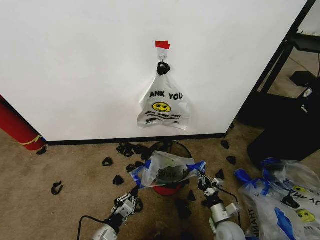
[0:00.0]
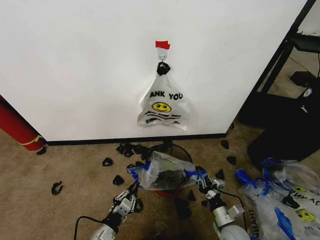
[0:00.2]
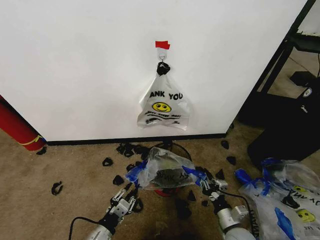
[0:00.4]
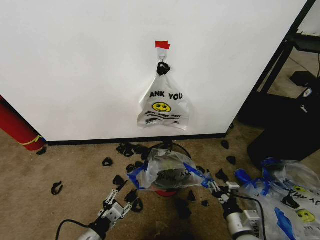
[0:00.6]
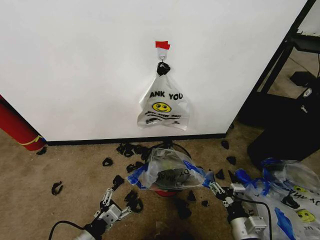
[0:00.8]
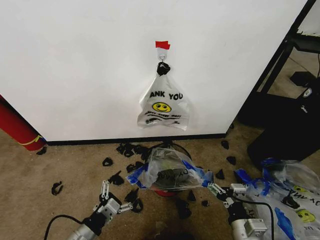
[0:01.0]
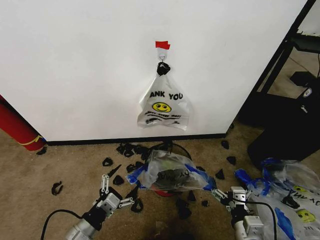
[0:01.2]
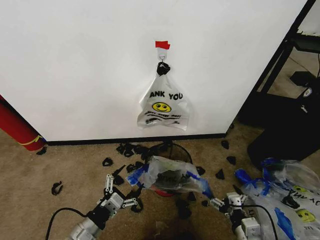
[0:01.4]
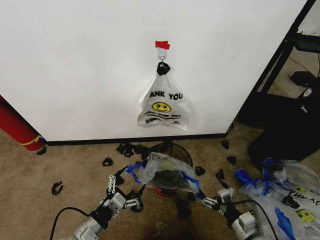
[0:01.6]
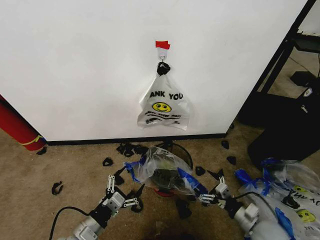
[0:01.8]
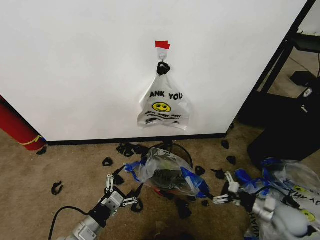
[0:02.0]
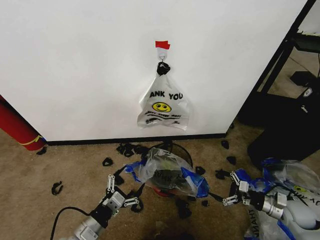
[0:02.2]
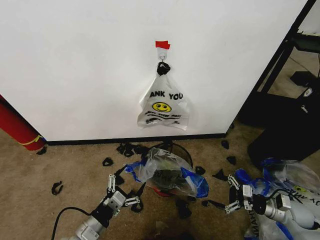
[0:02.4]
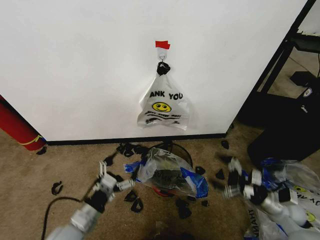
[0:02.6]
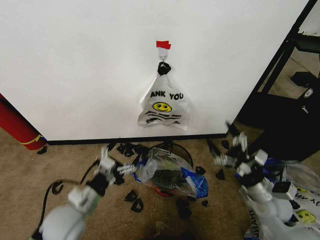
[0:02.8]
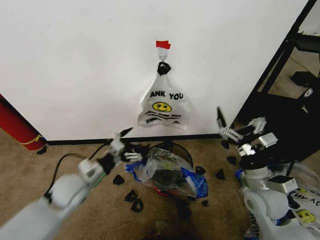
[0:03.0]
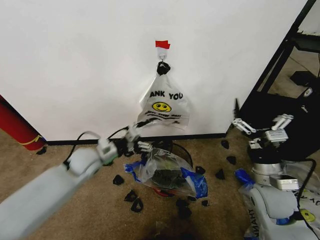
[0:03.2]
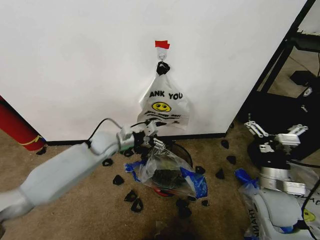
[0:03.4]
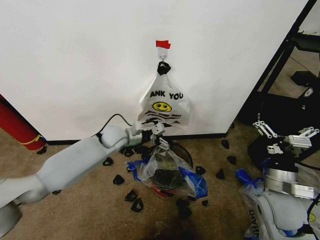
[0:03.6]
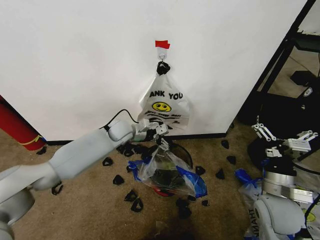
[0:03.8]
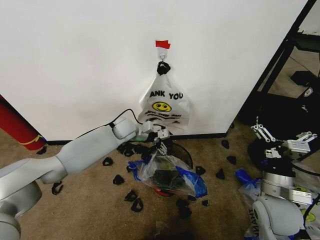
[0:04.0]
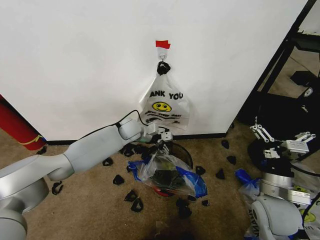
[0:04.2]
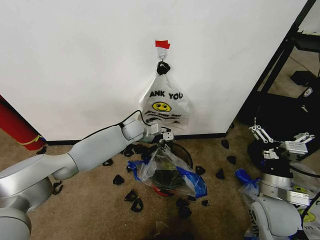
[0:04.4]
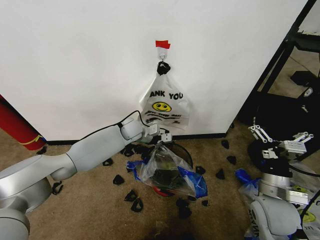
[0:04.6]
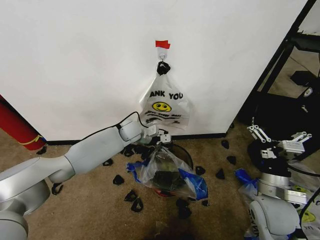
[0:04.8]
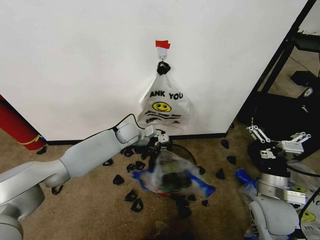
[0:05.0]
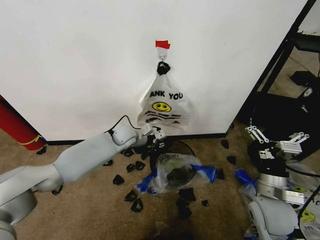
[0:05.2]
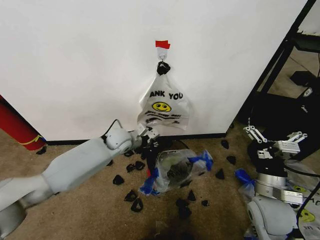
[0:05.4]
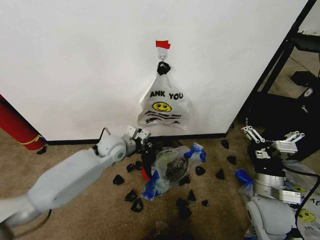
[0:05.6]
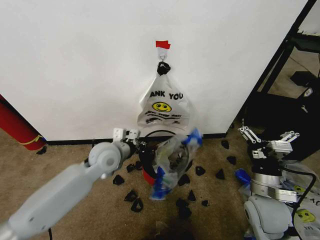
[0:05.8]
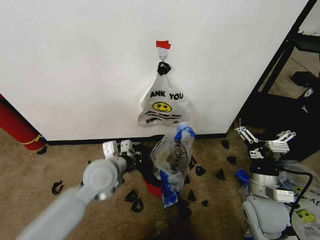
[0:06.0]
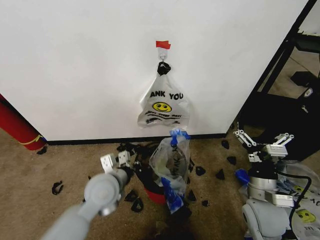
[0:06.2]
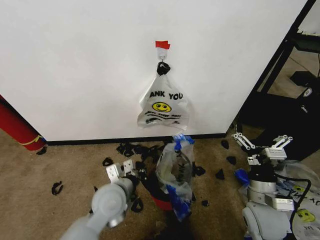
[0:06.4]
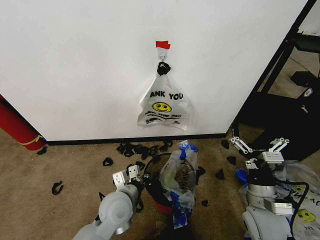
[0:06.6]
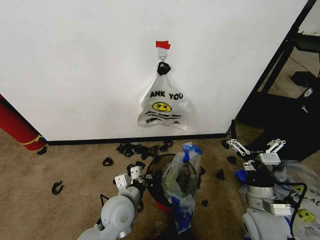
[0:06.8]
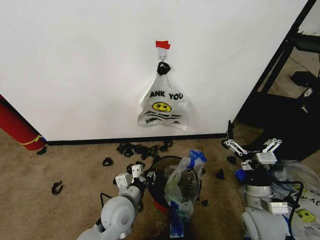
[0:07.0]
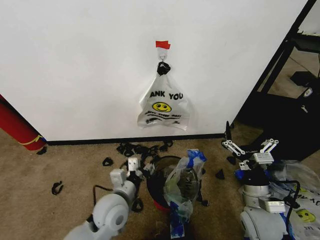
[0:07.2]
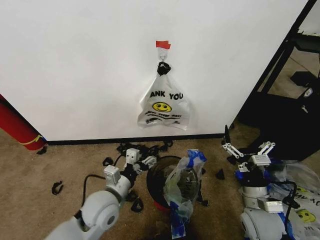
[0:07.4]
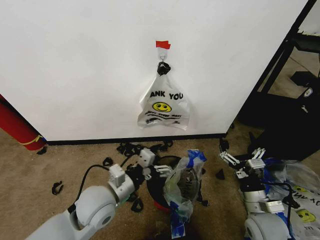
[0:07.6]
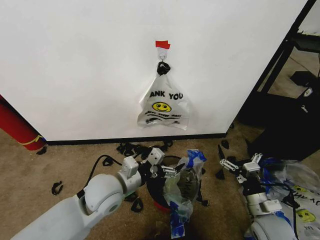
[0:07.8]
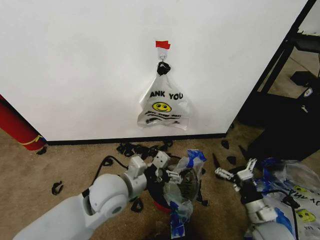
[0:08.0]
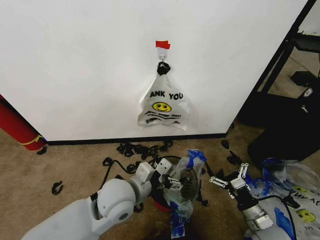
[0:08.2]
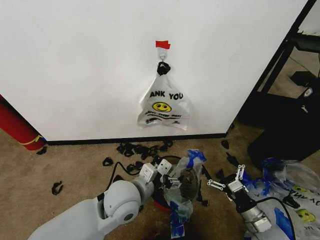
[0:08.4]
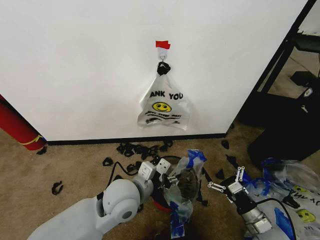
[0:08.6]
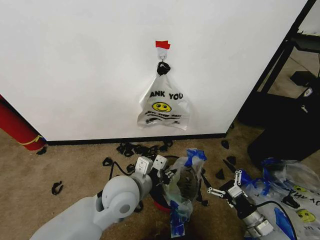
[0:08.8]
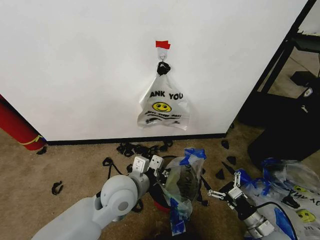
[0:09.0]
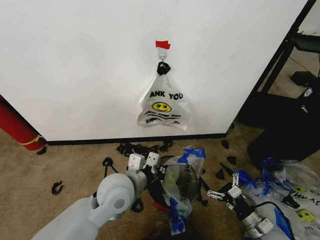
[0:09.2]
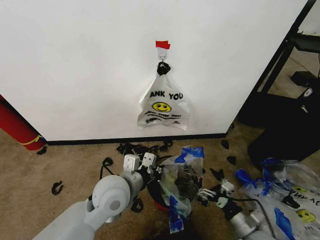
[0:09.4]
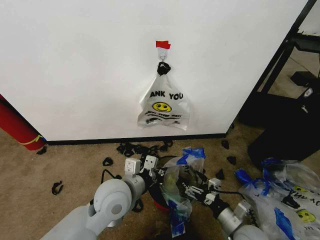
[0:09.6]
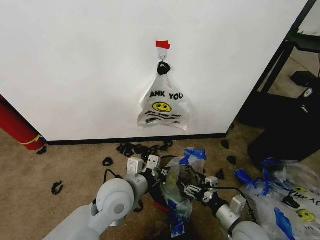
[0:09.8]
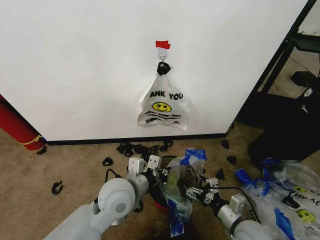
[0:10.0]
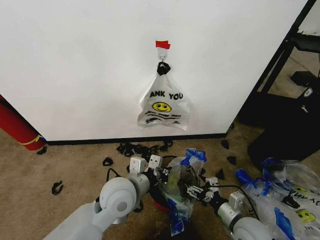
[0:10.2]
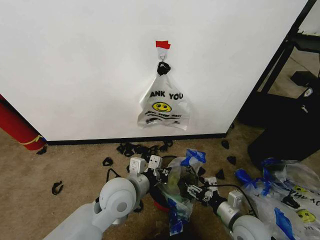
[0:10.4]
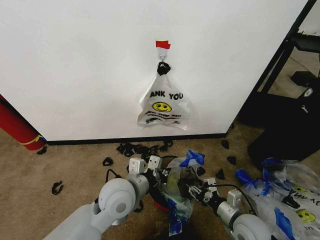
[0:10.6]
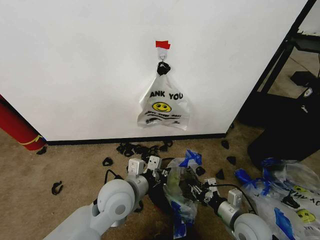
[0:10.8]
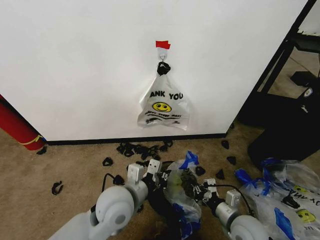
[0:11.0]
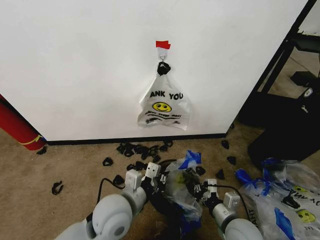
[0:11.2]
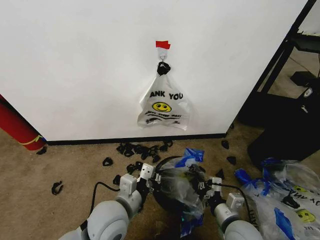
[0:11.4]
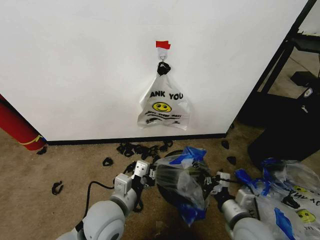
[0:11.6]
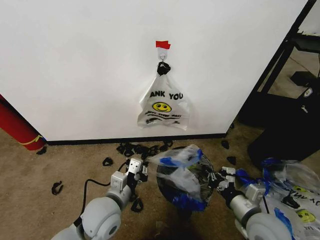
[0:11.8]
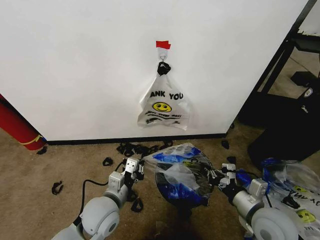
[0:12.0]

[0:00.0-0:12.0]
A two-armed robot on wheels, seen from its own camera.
Task of the whole recording: Pick up the garbage bag from the wall and place it over the trash bin.
0:00.0 to 0:01.6: The right gripper moves upward and backward, some 15 cm, and opens its fingers. The left gripper is displaced upward by some 10 cm, and opens up.
0:01.6 to 0:03.0: The left gripper travels forward and upward by approximately 15 cm; the right gripper goes some 20 cm upward and forward, and travels to the right and back again, some 20 cm each way.
0:03.0 to 0:04.4: The left gripper heads forward and to the right, covering about 30 cm.
0:04.4 to 0:06.0: The left gripper moves backward, about 25 cm, and closes its fingers.
0:06.0 to 0:07.6: The right gripper shifts some 5 cm downward, while the left gripper goes about 10 cm backward, travels downward and back again, roughly 10 cm each way, and opens up.
0:07.6 to 0:09.0: The right gripper goes some 5 cm downward; the left gripper travels to the right by roughly 5 cm, and closes.
0:09.0 to 0:10.4: The right gripper heads to the left, covering approximately 10 cm.
0:10.4 to 0:12.0: The left gripper heads downward and to the left, covering about 10 cm, while the right gripper shifts approximately 10 cm upward, and closes.

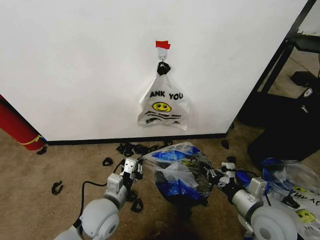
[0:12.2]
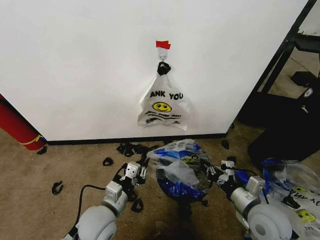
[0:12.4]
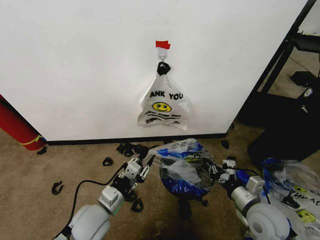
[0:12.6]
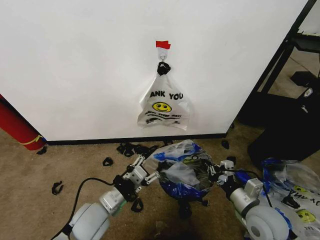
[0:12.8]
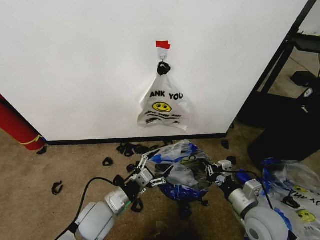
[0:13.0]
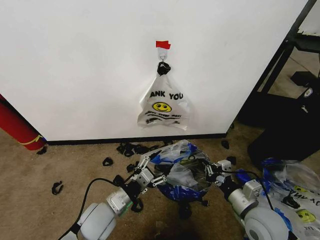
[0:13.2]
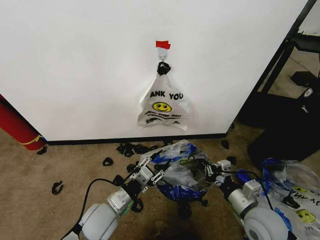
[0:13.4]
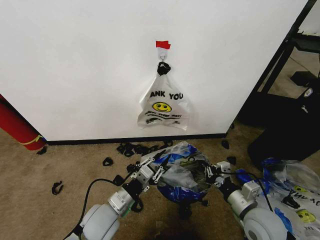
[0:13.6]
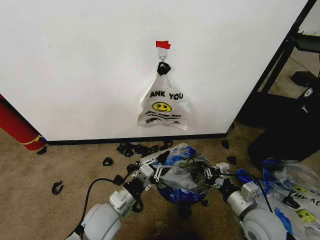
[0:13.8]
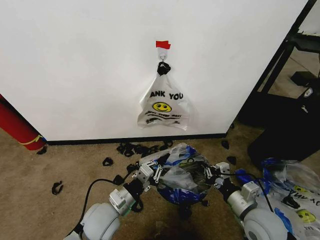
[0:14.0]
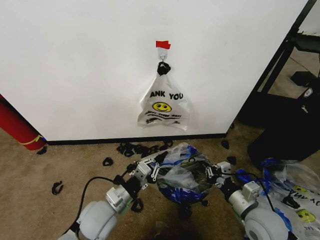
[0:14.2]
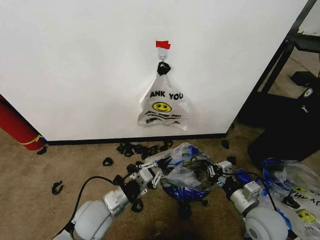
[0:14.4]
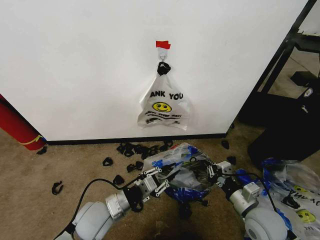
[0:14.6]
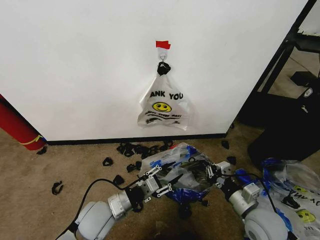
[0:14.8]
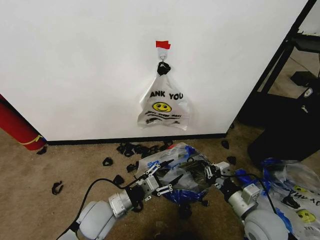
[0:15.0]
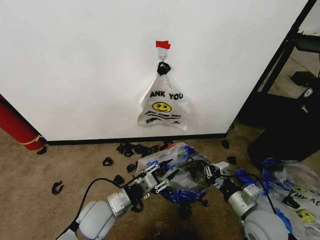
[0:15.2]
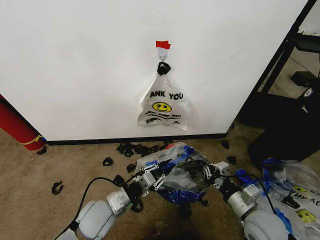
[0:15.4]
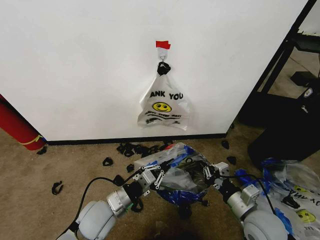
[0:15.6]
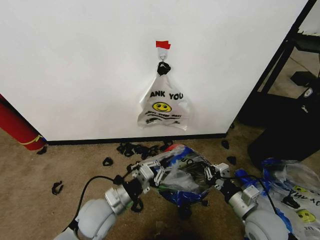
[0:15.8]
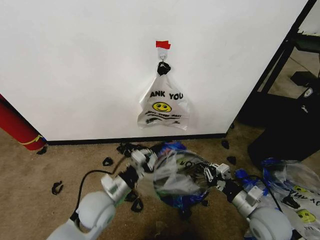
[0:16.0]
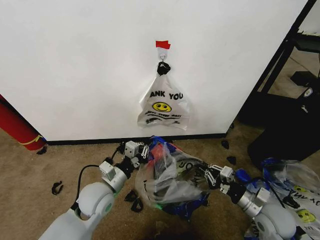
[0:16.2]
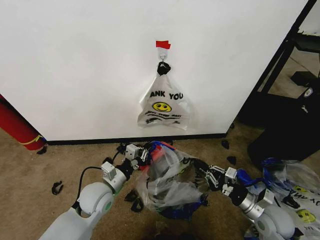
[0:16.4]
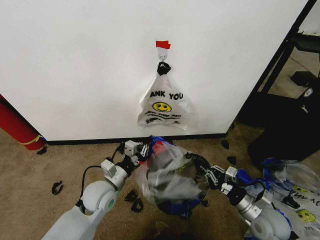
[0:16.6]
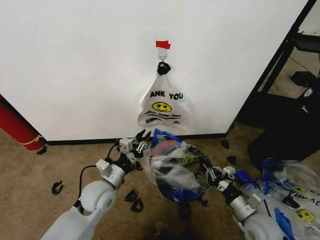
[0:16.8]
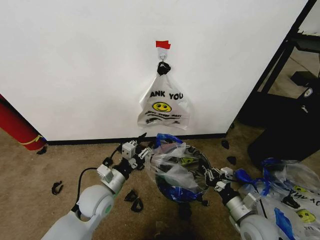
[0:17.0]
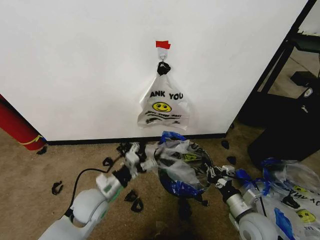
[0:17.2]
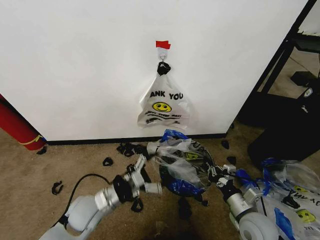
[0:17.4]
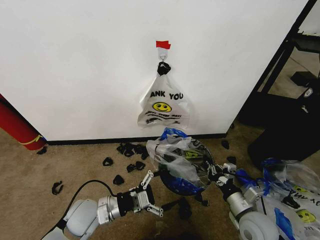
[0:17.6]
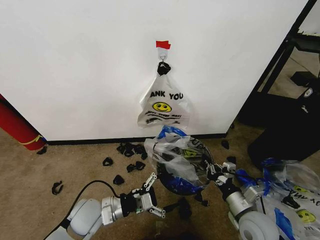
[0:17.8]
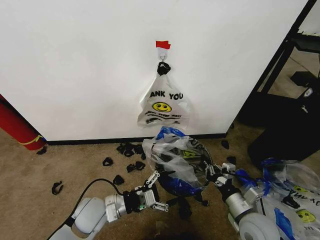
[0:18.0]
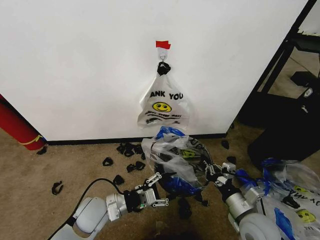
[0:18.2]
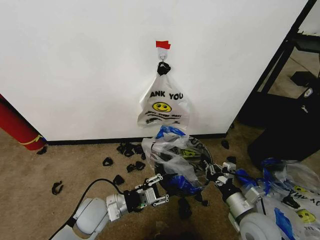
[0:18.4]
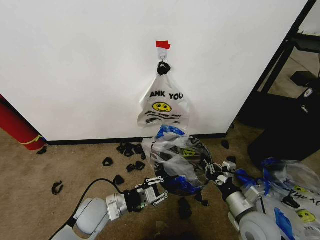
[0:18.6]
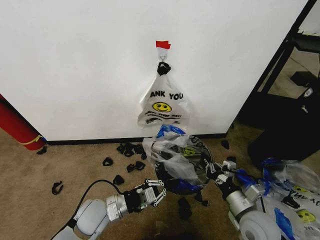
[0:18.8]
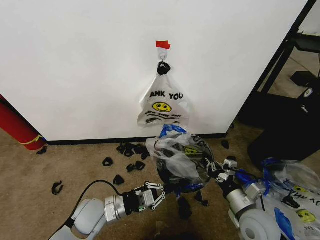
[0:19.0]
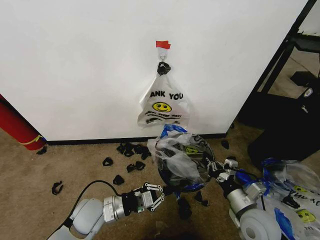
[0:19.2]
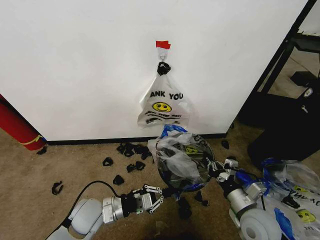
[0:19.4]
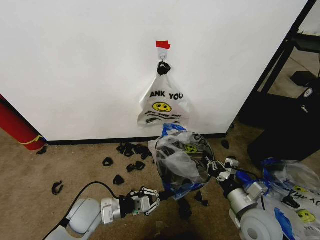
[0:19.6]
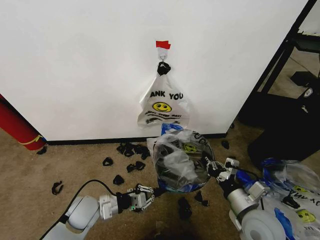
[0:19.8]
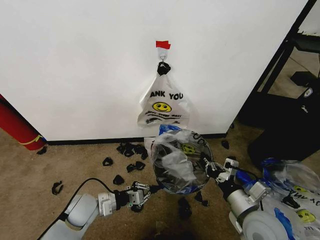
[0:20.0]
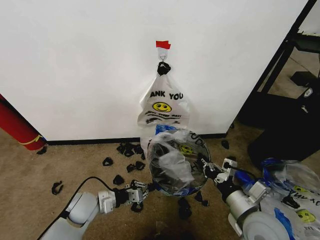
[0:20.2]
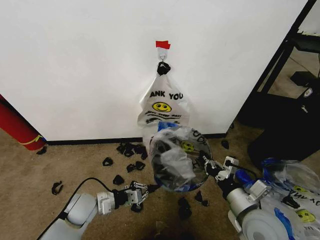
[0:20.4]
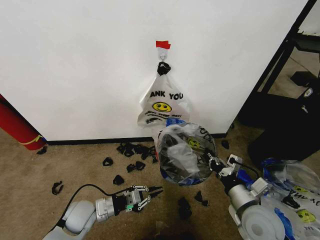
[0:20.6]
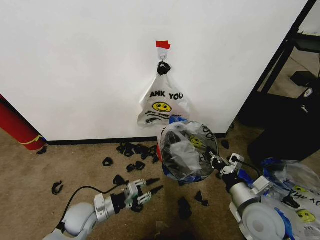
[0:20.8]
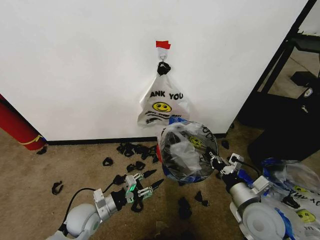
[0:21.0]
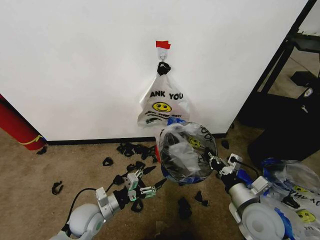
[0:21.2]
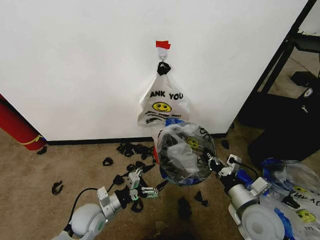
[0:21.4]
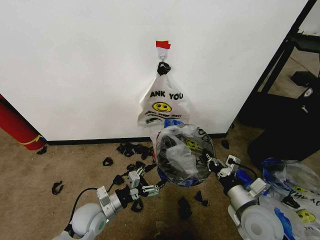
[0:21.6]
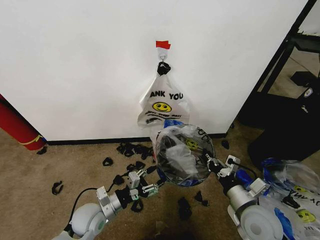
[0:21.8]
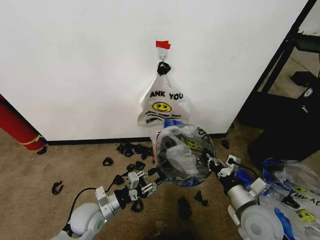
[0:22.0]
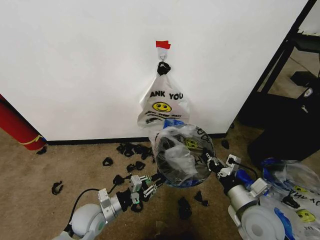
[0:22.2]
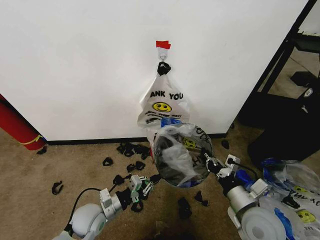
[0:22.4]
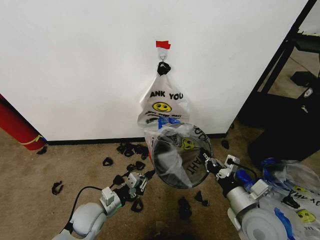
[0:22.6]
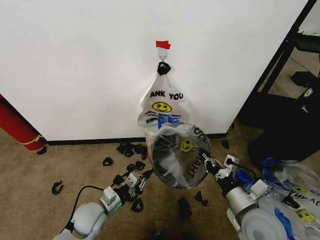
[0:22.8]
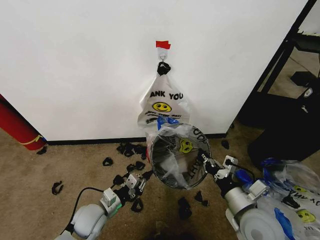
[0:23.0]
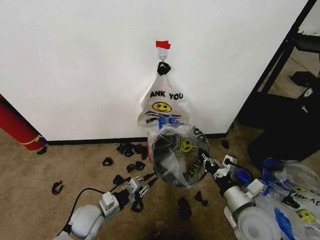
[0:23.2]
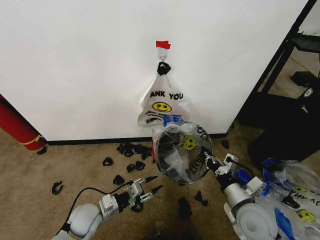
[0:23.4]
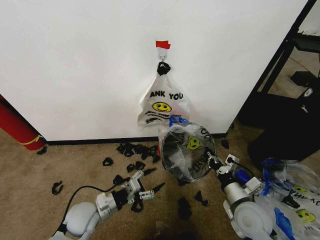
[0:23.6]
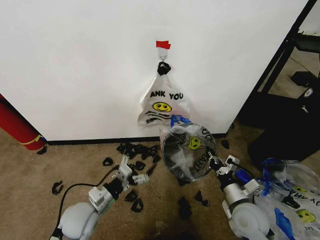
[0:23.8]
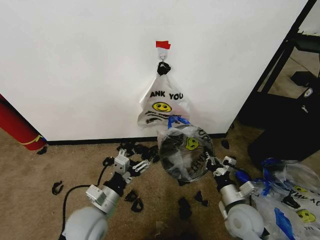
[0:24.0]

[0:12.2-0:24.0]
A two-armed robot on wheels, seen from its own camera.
Task of the whole recording: Pick up the garbage bag from the wall and place it over the trash bin.
0:12.2 to 0:13.6: The left gripper opens, then closes again.
0:13.6 to 0:15.2: There are only small adjustments of the grippers.
0:15.2 to 0:16.6: The right gripper goes roughly 5 cm to the right and downward. Meanwhile the left gripper goes approximately 5 cm forward.
0:16.6 to 0:18.2: The left gripper ends up some 5 cm from where it was, and opens up. The right gripper is displaced to the left by roughly 5 cm.
0:18.2 to 0:19.6: The left gripper closes up.
0:19.6 to 0:21.0: The left gripper opens.
0:21.0 to 0:22.6: The left gripper closes.
0:22.6 to 0:24.0: The right gripper is displaced downward by some 10 cm. Meanwhile the left gripper travels upward, backward and to the right by about 10 cm, and opens its fingers.
